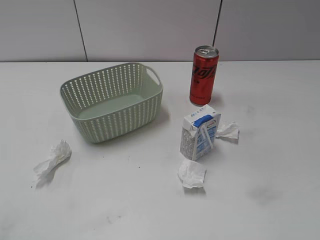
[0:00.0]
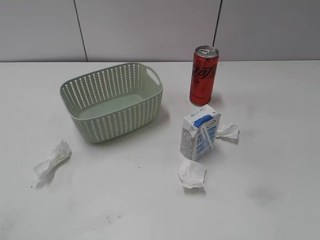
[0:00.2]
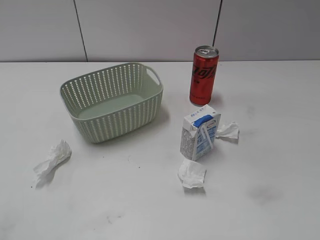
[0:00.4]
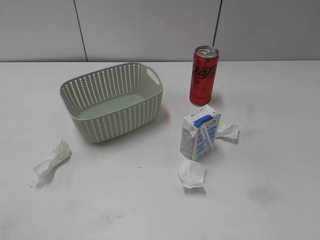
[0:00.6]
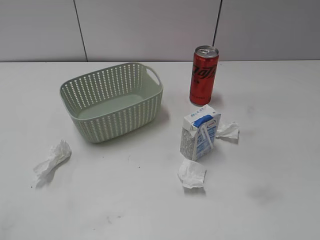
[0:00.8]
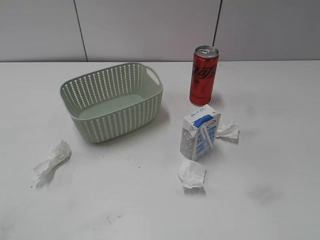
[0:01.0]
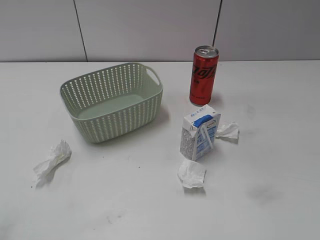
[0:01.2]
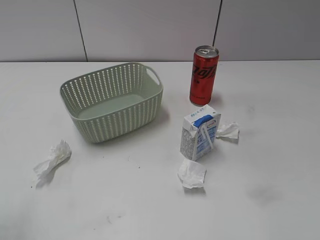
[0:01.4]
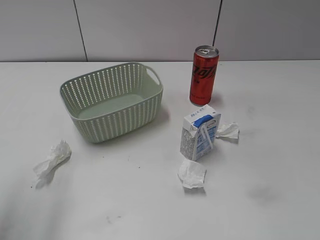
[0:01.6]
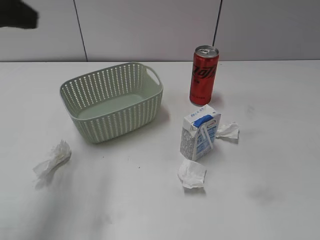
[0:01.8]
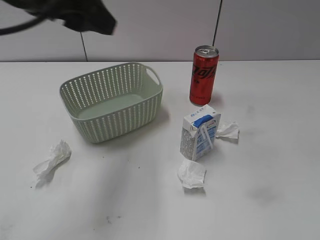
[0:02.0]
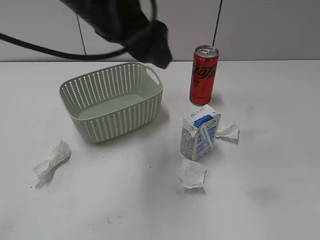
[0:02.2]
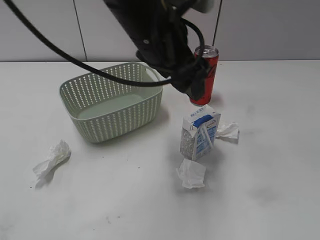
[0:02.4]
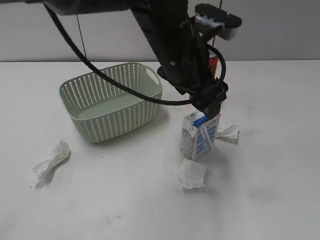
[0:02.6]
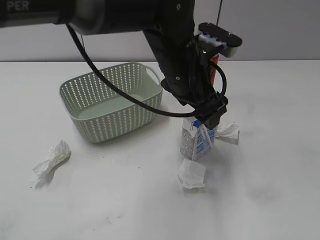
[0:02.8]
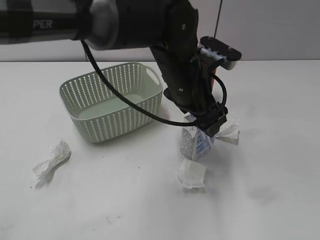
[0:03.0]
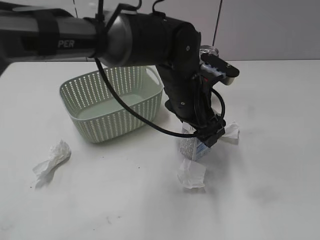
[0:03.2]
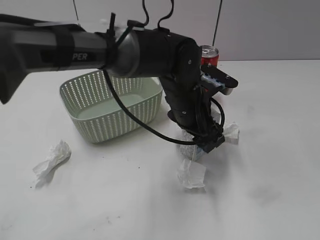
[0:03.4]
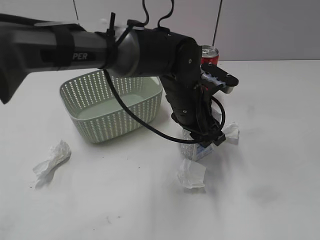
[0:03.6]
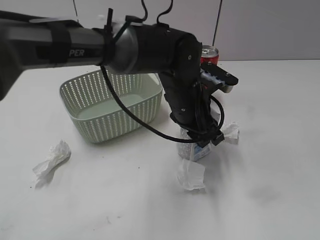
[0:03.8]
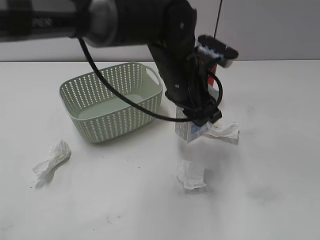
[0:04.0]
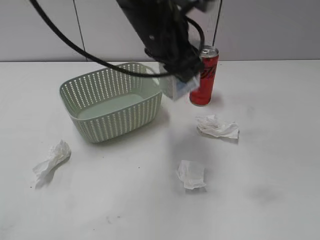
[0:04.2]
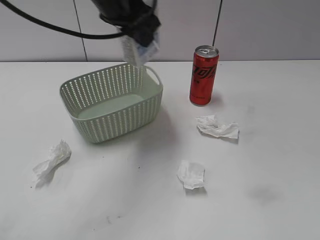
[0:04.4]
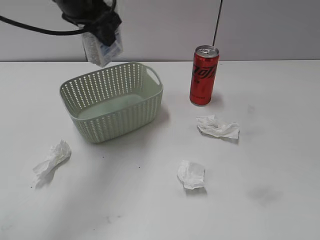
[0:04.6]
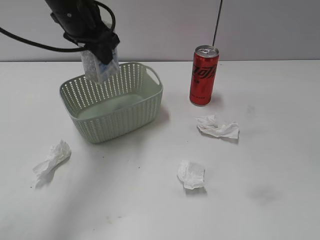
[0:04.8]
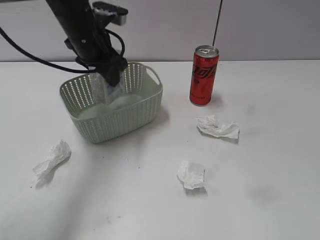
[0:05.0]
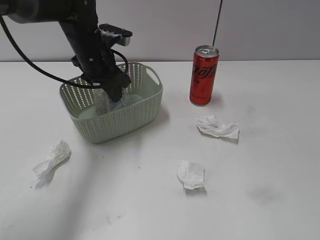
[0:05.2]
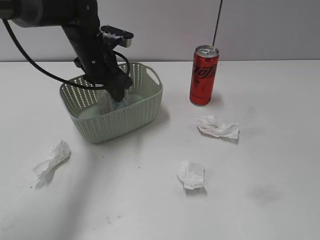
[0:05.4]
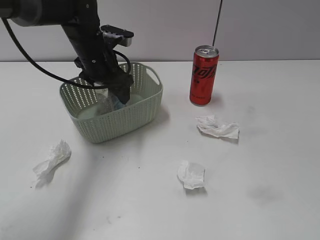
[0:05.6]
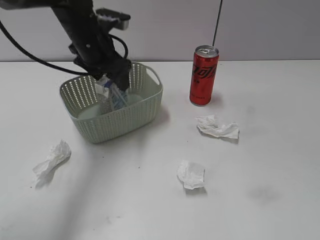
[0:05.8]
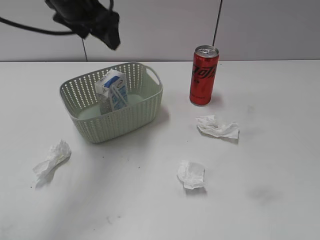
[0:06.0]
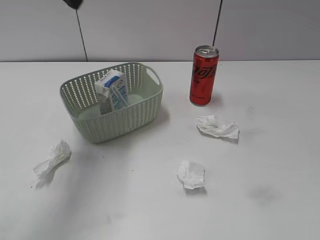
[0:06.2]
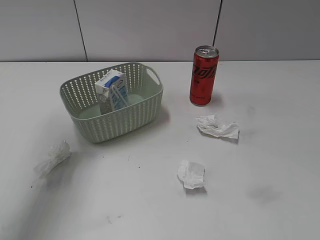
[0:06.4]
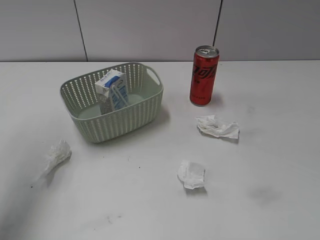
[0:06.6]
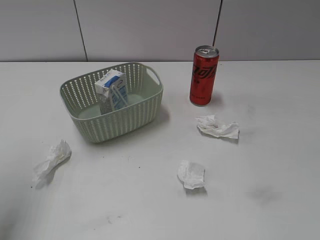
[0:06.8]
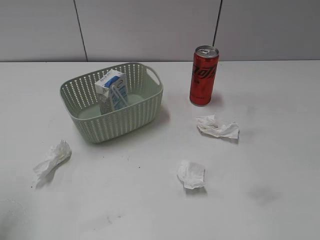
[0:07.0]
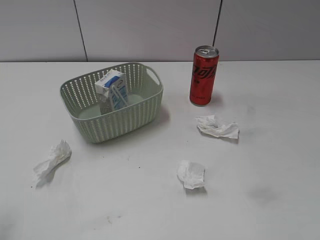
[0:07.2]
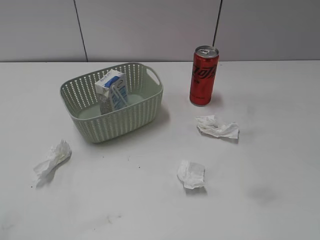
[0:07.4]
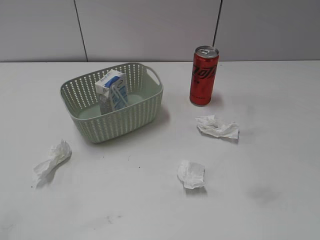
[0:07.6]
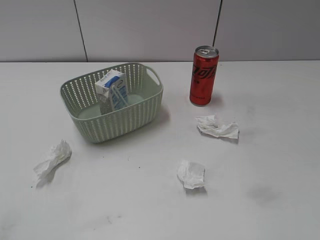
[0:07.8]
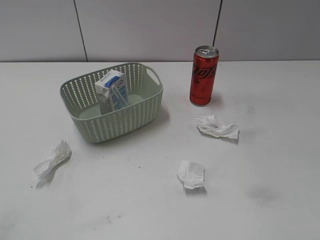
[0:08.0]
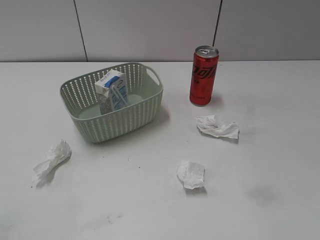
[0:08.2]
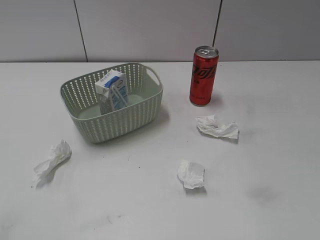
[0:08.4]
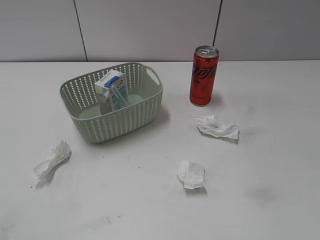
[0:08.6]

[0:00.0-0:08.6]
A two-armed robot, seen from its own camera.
Step, 0:01.8 to 0:03.6: Grasp the milk with left gripper.
Step, 0:03.8 to 0:06.0: Place the milk in the basket with left gripper.
0:01.4 to 0:02.8: The left gripper is displaced to the right and forward by roughly 40 cm.
0:02.8 to 0:04.4: The left gripper is displaced to the left, upward and forward by approximately 15 cm, and closes.
0:04.4 to 0:05.8: The left gripper heads downward and forward, covering about 10 cm, and opens.
0:05.8 to 0:07.2: The left gripper moves backward and to the left, some 35 cm.

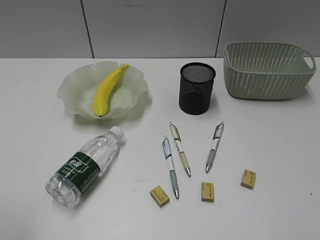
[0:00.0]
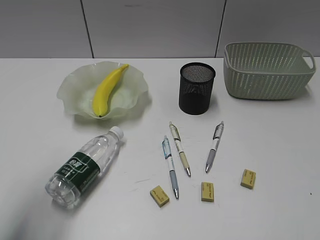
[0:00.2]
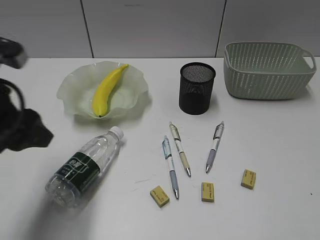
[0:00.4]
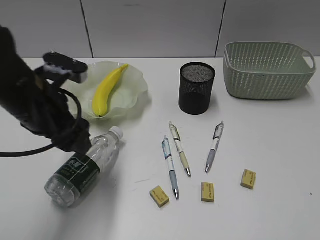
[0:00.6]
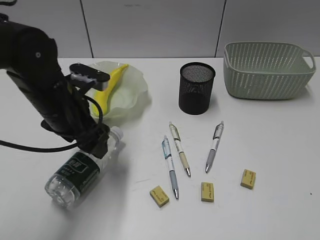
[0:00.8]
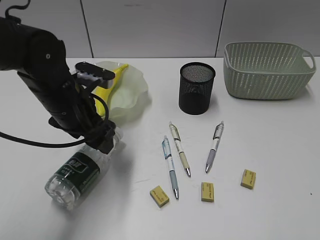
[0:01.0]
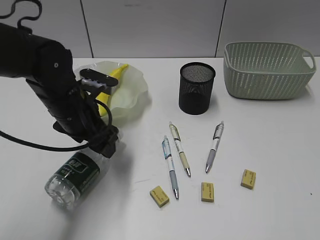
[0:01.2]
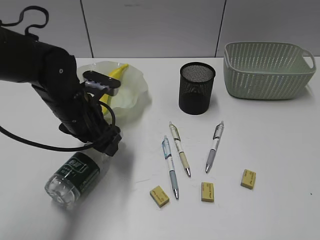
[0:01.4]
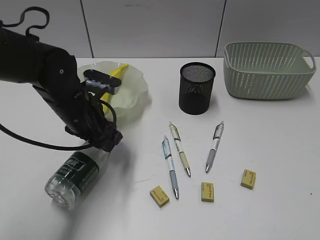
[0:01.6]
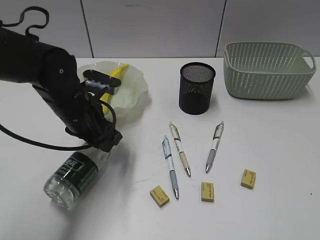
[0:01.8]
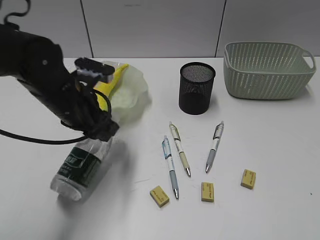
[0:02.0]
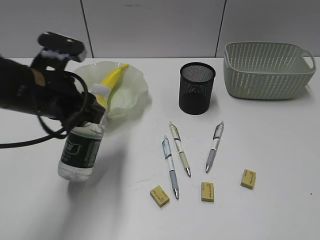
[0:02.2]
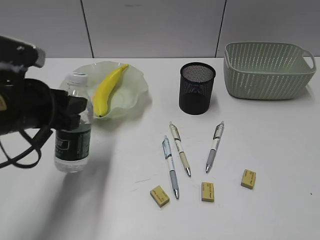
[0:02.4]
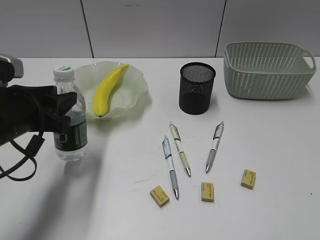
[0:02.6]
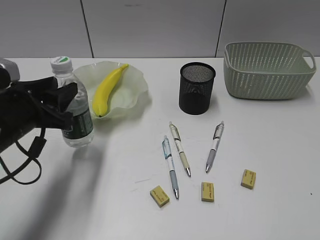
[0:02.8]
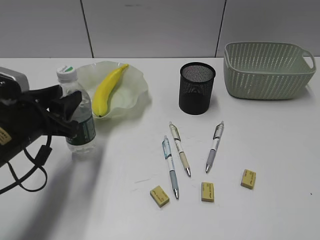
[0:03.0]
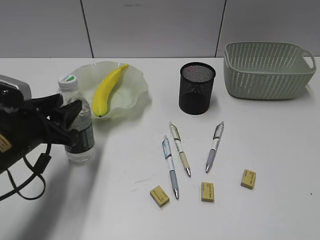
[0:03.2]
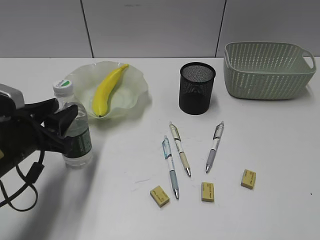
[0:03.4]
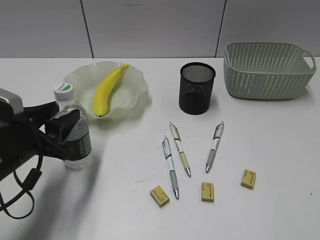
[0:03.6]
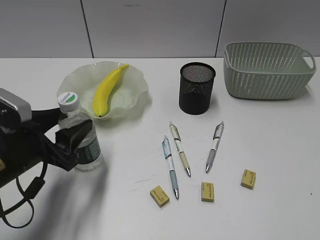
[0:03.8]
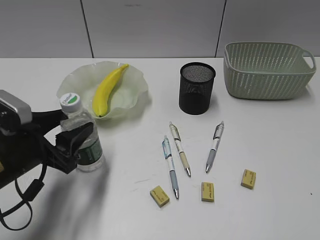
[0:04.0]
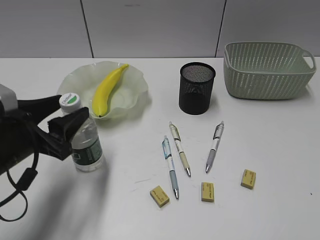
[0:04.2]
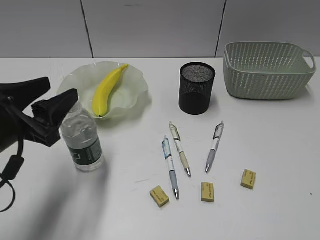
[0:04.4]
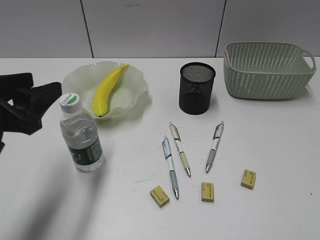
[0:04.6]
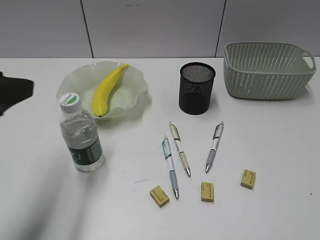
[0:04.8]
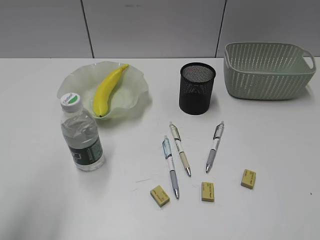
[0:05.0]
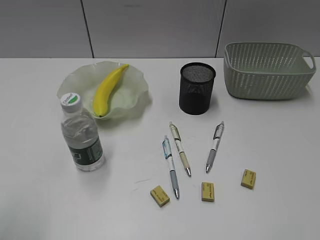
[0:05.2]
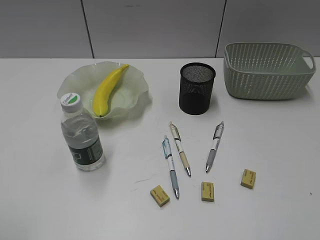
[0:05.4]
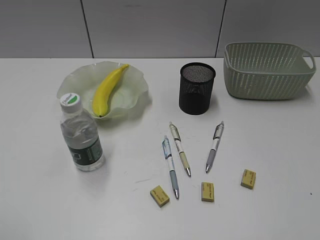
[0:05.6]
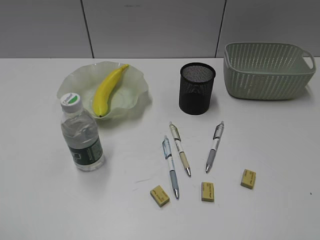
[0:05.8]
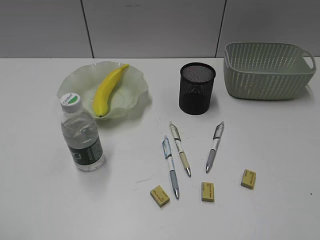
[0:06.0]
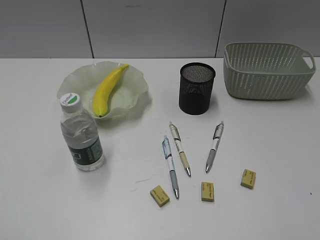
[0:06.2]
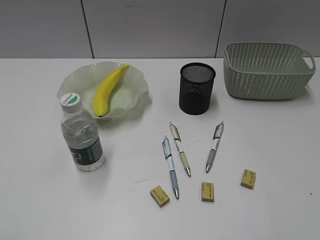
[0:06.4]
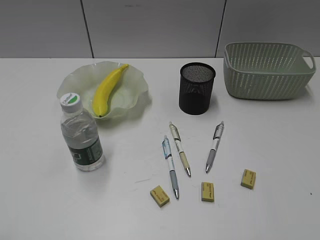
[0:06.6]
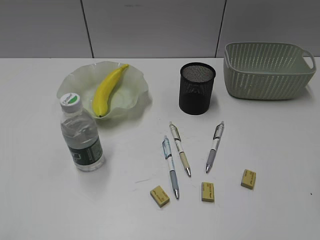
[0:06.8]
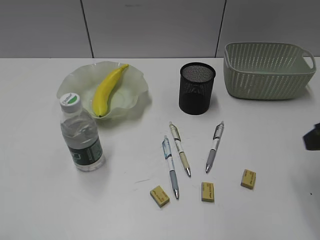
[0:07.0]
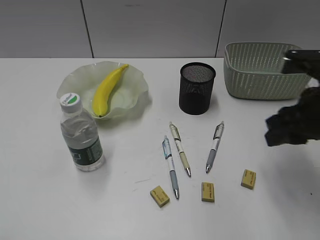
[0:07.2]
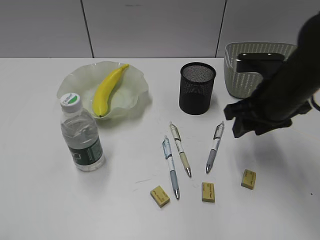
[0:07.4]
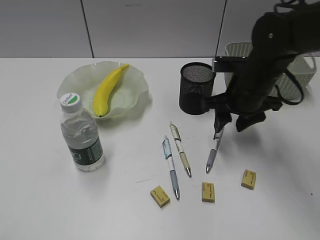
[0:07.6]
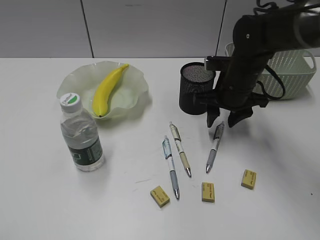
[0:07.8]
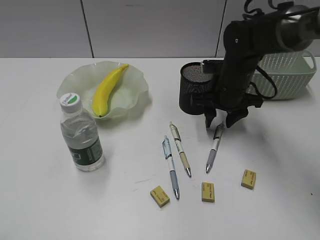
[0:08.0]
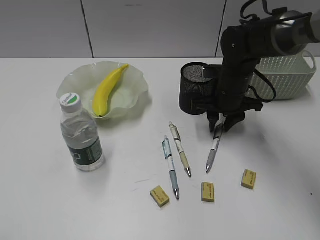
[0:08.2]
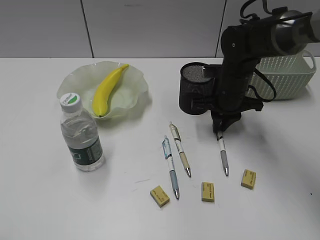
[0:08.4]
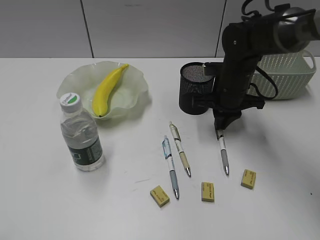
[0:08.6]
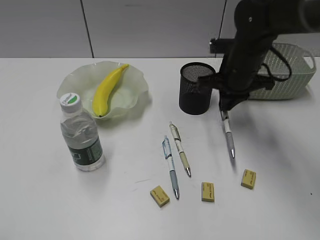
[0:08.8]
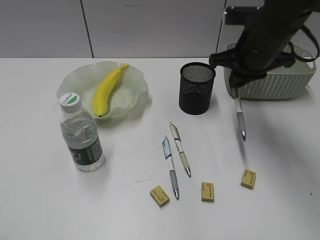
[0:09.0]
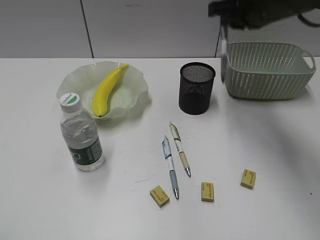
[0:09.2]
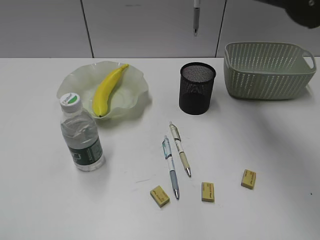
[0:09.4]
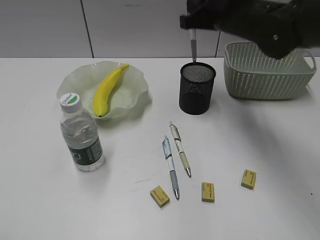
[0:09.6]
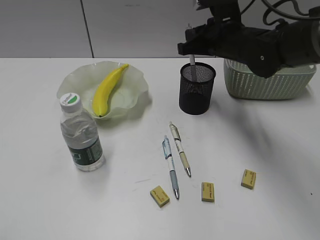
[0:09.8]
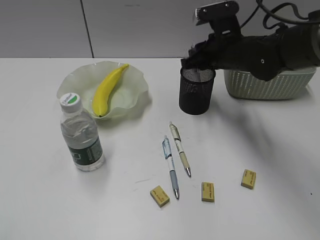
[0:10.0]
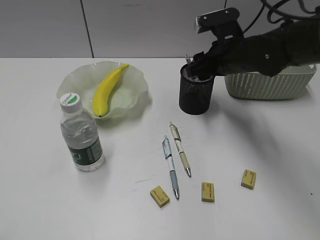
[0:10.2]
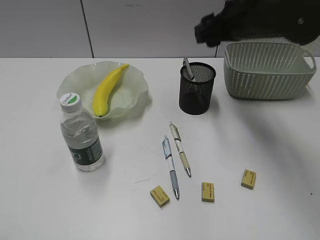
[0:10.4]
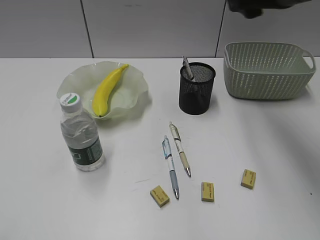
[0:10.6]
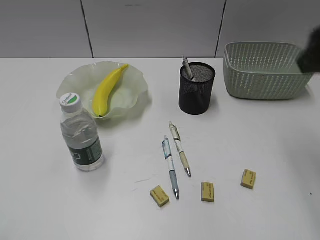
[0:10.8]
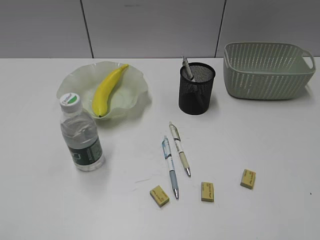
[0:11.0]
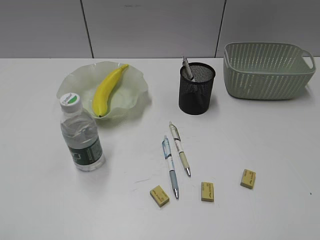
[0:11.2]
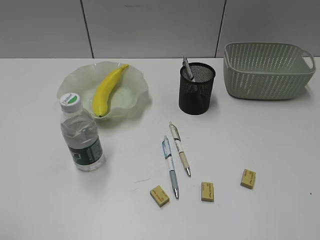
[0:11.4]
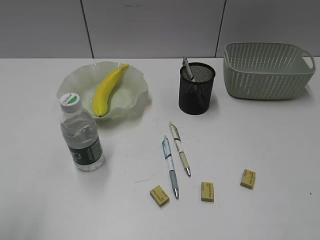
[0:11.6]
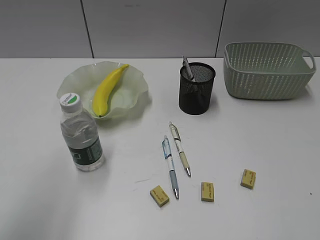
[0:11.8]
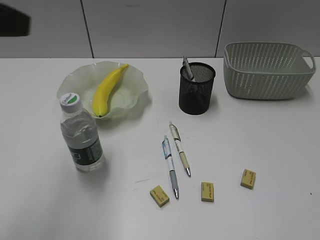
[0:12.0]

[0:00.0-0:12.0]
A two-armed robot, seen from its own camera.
Step, 0:00.0 to 0:01.6: Grasp the bottle with left gripper.
Step, 0:01.8 to 0:04.2: Stand the bottle with left gripper.
Step, 0:04.4 to 0:08.4: Grasp the gray pen with right gripper.
Step, 0:08.6 to 0:10.2: Place the gray pen in pen holder with right gripper.
0:00.0 to 0:01.6: The left gripper heads forward, to the right and downward, covering roughly 35 cm.
0:01.6 to 0:03.0: The left gripper moves to the left and backward, some 10 cm.
0:03.0 to 0:04.4: The left gripper shifts by roughly 5 cm, and opens.
0:04.4 to 0:06.0: The left gripper goes approximately 25 cm backward, upward and to the left.
0:06.0 to 0:07.6: The right gripper travels forward, to the left and downward by some 40 cm.
0:07.6 to 0:09.0: The right gripper shifts some 10 cm upward, and closes up.
0:09.0 to 0:10.4: The right gripper swings up and down, roughly 15 cm each way, with 2 reversals, and opens its fingers.
0:10.4 to 0:12.0: The left gripper shifts roughly 25 cm forward, to the right and upward, while the right gripper heads backward and to the right, covering roughly 40 cm.

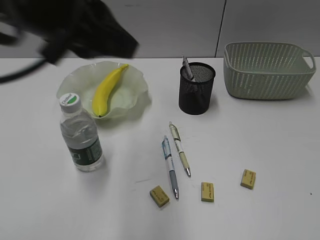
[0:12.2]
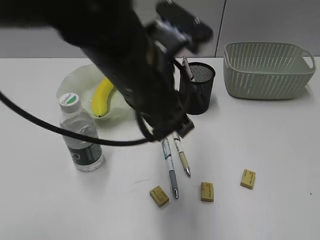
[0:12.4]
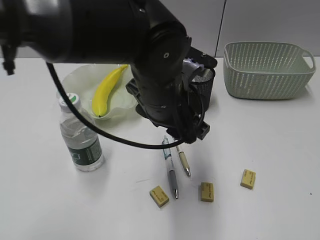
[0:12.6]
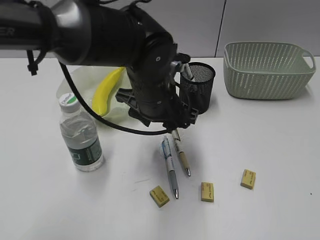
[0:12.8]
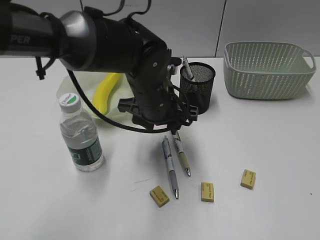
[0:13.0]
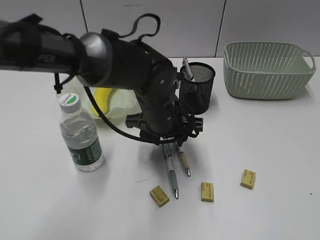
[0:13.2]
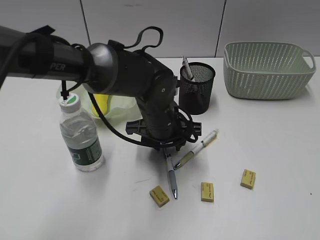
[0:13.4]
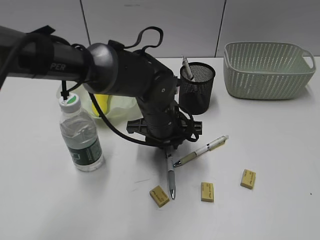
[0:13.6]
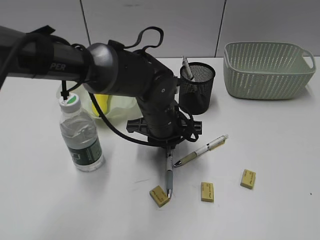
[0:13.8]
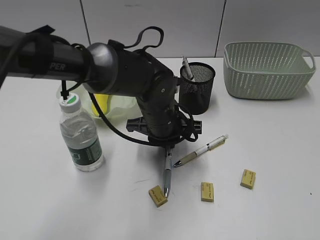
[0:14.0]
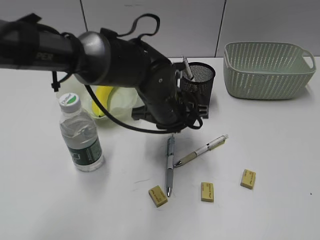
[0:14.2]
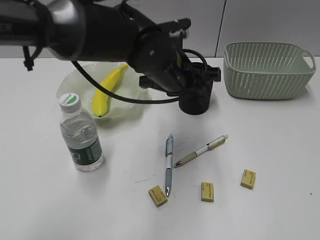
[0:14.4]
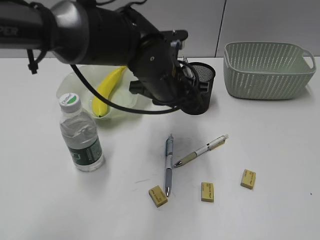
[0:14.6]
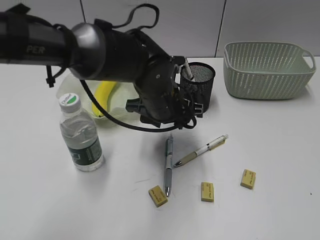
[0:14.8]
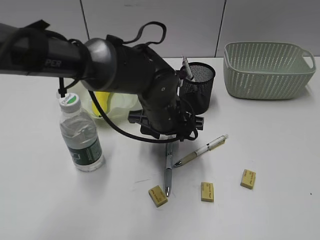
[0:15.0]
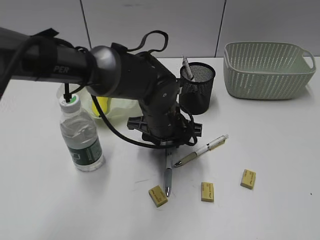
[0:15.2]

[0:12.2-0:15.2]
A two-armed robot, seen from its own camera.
Step, 0:12.2 to 0:14.0: Grasp the blue pen with left gripper.
0:12.2 to 0:13.8: The left gripper shifts approximately 25 cm downward, to the right and forward, and opens and closes again.
0:13.8 to 0:15.2: The left gripper travels upward and back again, some 10 cm each way, and opens.
